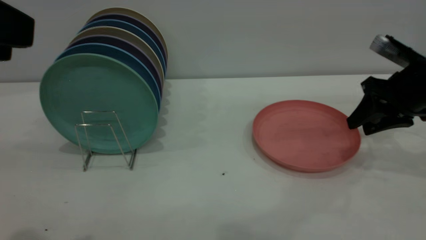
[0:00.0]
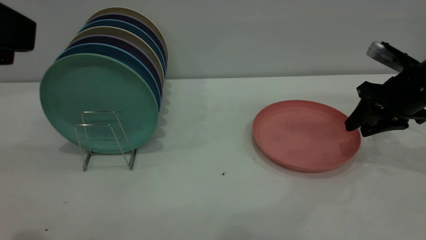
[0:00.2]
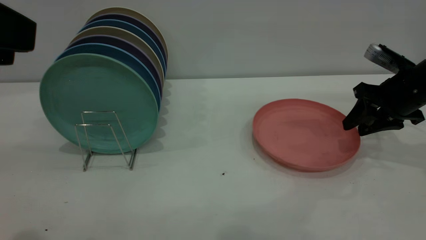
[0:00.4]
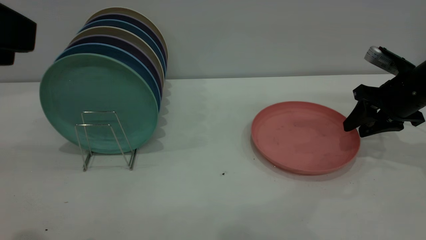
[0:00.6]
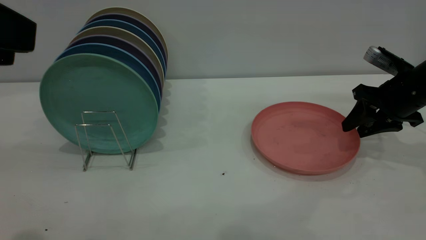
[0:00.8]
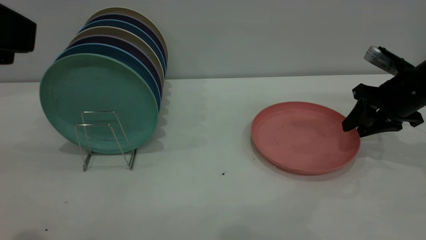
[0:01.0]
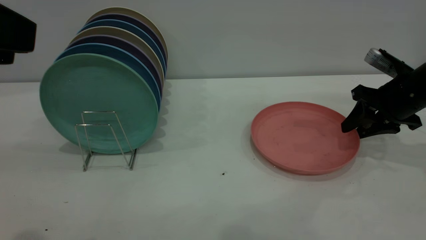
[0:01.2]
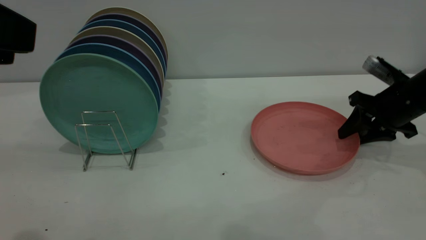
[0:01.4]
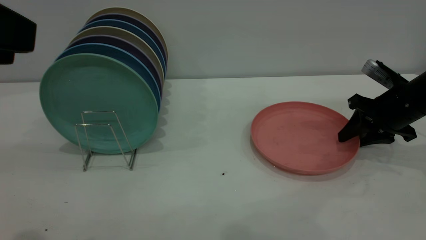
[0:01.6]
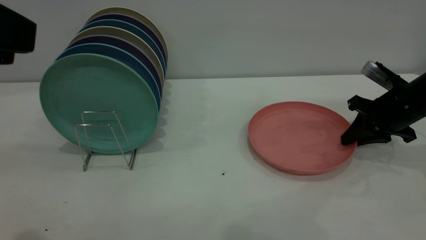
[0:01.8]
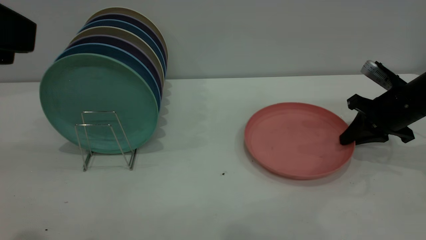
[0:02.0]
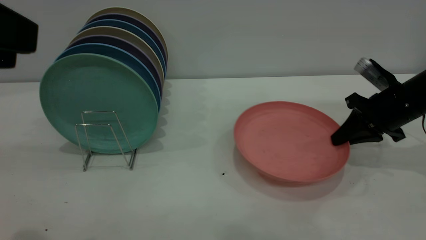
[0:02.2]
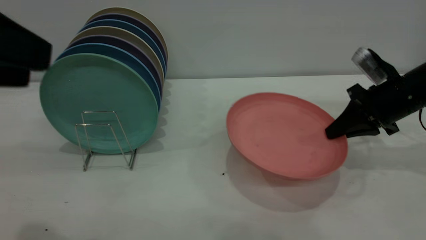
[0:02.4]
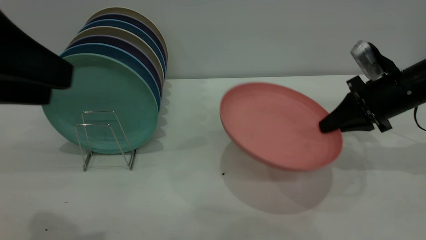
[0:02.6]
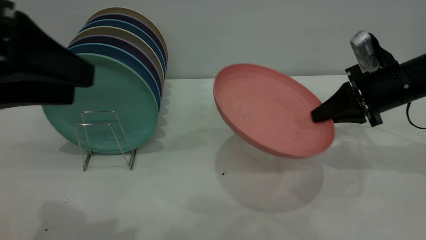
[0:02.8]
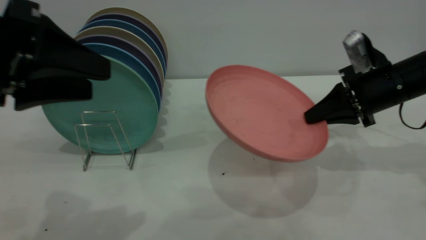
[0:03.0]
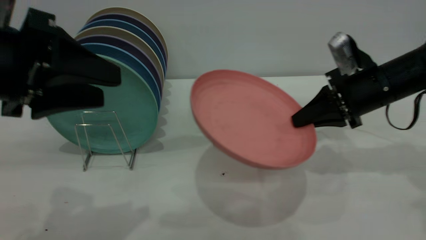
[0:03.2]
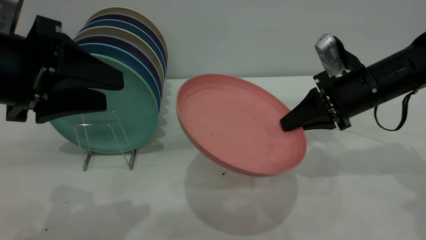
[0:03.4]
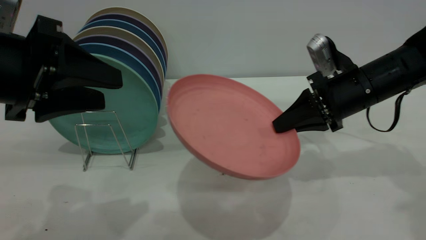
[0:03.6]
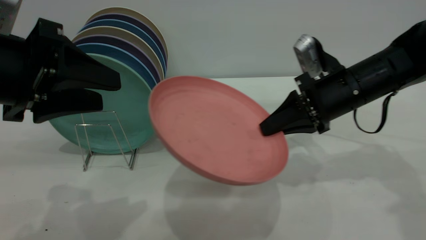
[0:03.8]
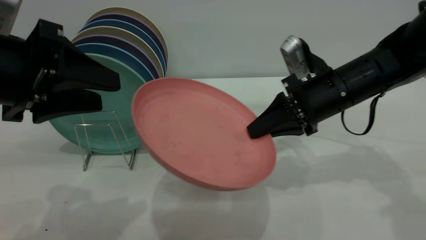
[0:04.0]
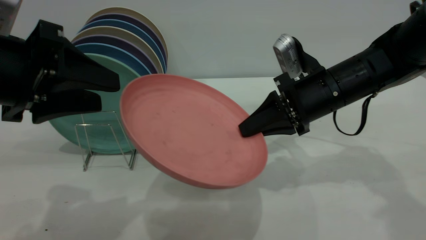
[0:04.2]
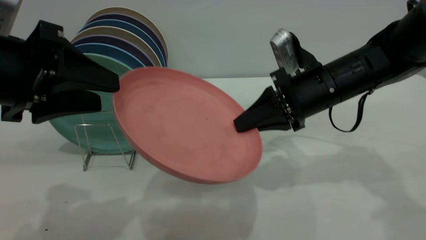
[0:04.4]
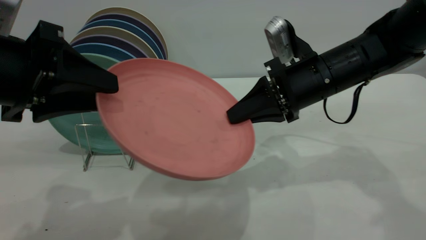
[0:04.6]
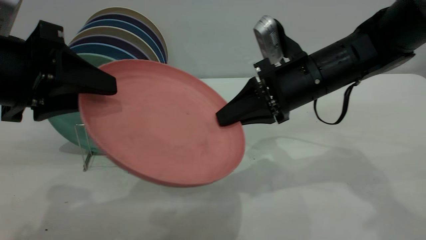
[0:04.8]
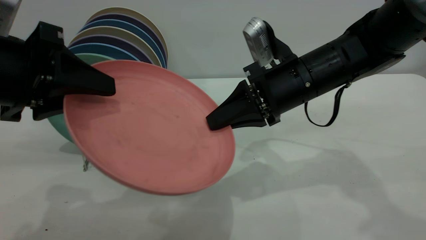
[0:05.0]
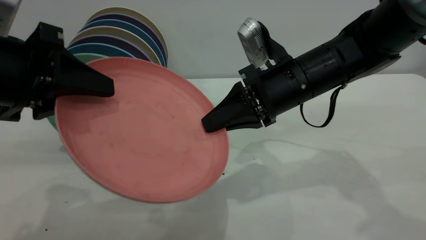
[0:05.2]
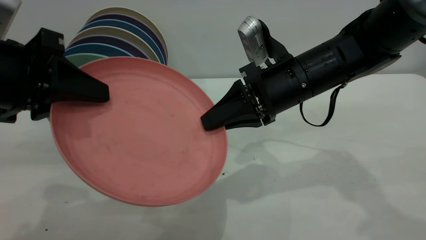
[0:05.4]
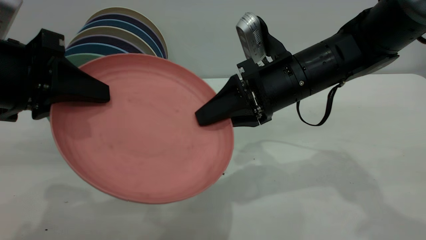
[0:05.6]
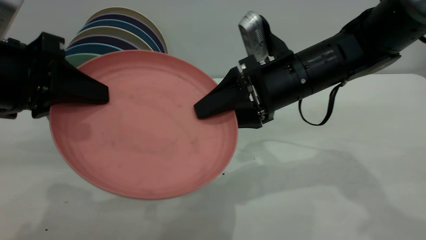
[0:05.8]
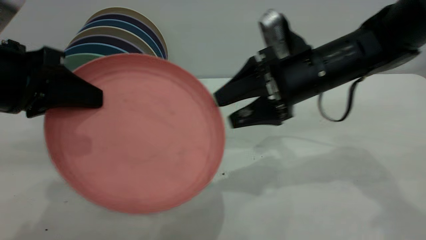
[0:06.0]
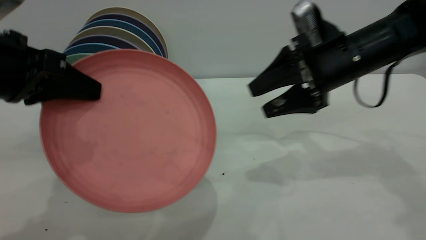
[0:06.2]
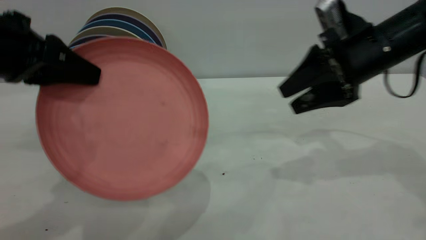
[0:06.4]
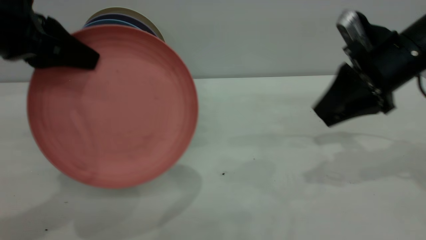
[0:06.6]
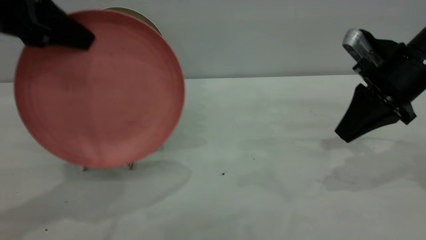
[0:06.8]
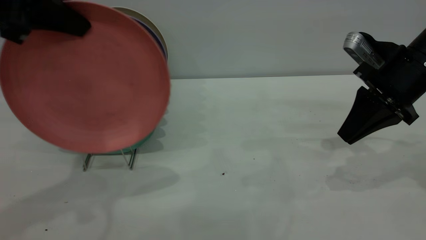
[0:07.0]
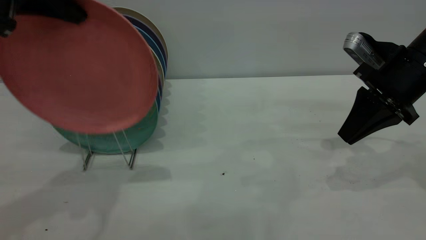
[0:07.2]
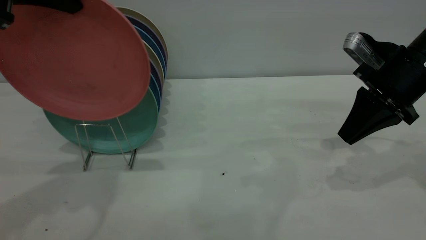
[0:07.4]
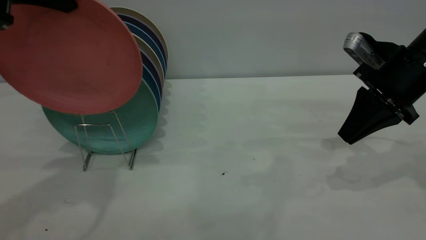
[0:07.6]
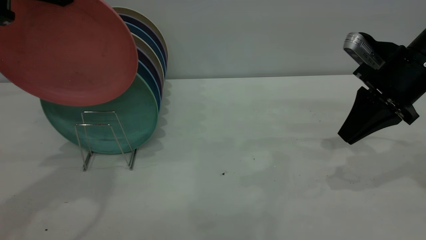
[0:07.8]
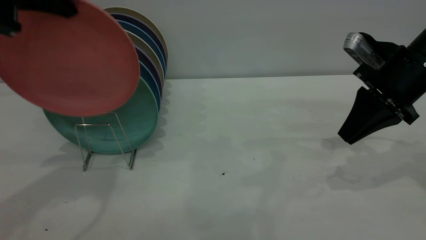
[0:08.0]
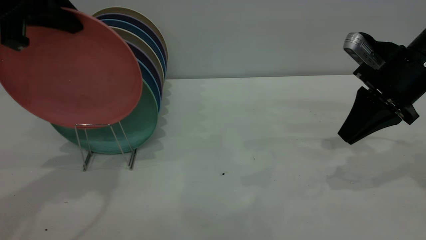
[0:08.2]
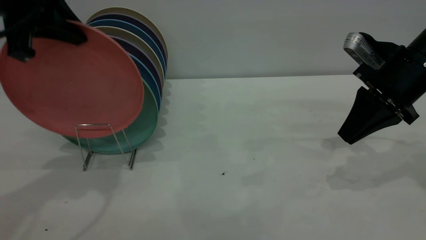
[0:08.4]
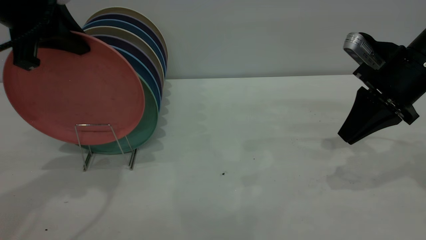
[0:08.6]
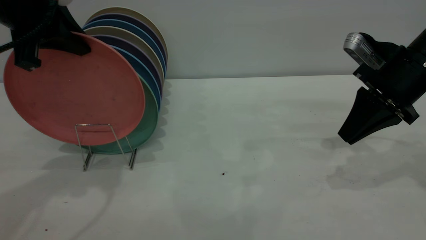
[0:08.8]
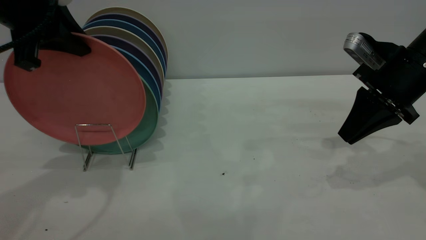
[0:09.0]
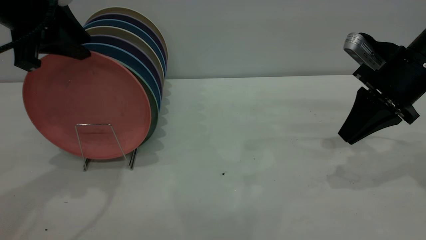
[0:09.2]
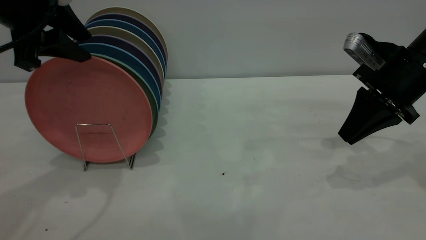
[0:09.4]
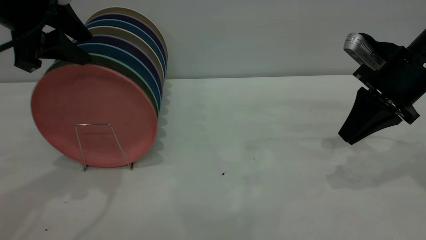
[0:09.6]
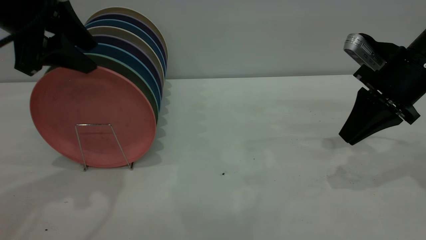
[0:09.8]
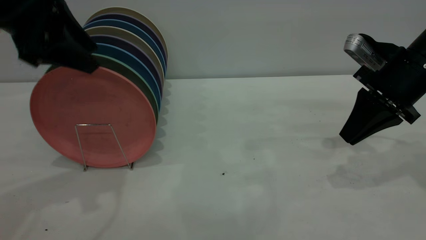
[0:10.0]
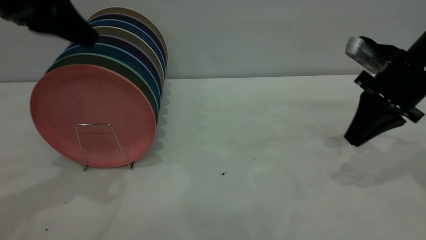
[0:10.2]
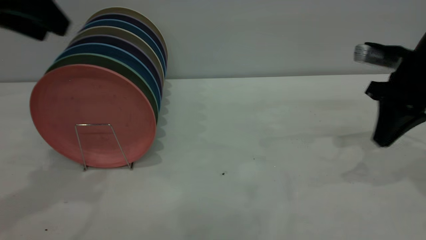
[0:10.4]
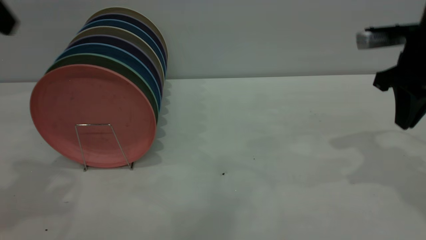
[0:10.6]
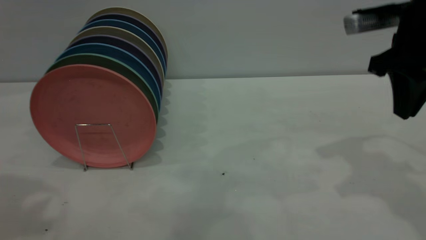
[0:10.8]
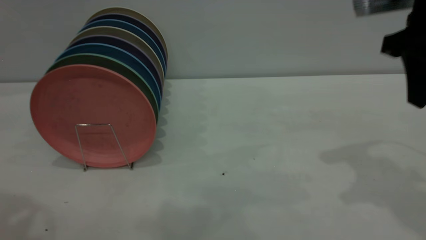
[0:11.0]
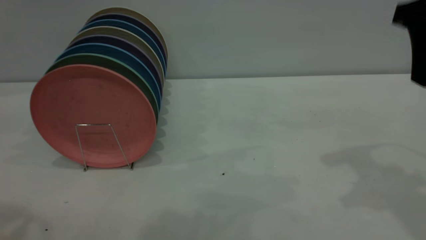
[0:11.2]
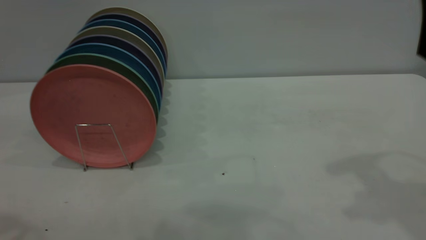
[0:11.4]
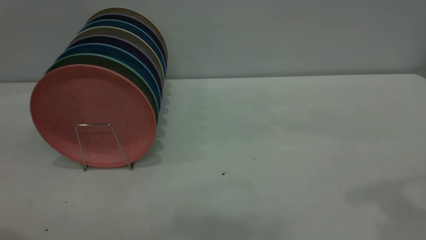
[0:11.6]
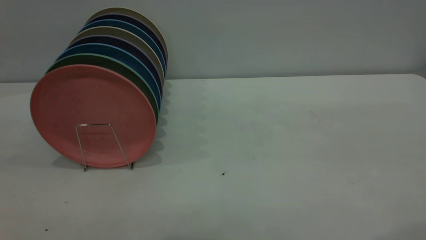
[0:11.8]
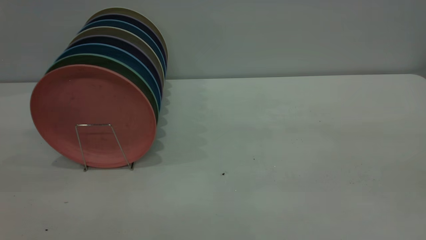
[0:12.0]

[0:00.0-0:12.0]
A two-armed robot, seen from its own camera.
Task of the whole recording: the right gripper grasp the pink plate, the right gripper pass the pink plate to the left gripper, and the left gripper place the pink plate on the plate rack.
Step, 0:00.0 to 0:02.2: Pick up the plate with the right gripper.
Step, 0:02.4 to 0:06.0: Pass the plate from the right gripper to the left gripper.
Step, 0:06.2 to 0:10.2: Place the plate on the shelf.
0:00.0 to 0:01.6: The right gripper heads downward, covering about 5 cm.
0:01.6 to 0:03.0: The right gripper ends up about 5 cm from where it was, and closes; the left gripper shifts about 10 cm downward and forward.
0:03.0 to 0:04.4: The right gripper goes some 10 cm to the left.
0:04.4 to 0:06.0: The right gripper opens its fingers, while the left gripper closes its fingers.
0:06.0 to 0:07.6: The left gripper goes roughly 15 cm upward and forward. The right gripper travels to the right by roughly 10 cm, and closes its fingers.
0:07.6 to 0:09.0: The left gripper travels downward by roughly 5 cm.
0:09.0 to 0:10.4: The left gripper heads upward, covering roughly 5 cm, and opens.
0:10.4 to 0:12.0: The right gripper goes about 35 cm backward and upward, and opens its fingers. The left gripper moves backward, about 20 cm.
